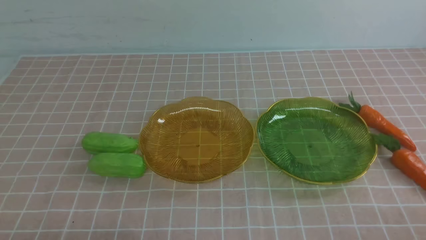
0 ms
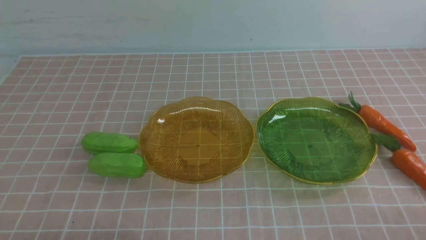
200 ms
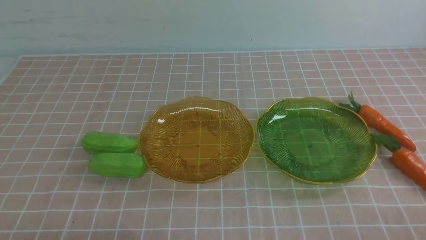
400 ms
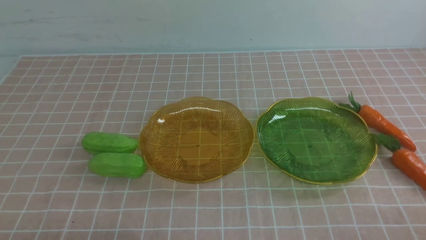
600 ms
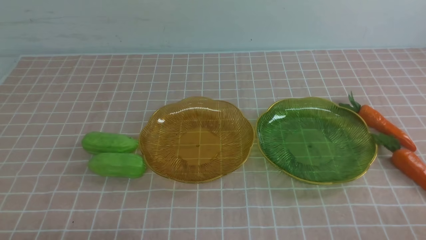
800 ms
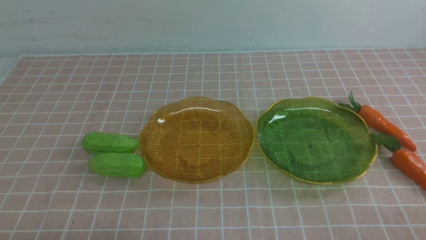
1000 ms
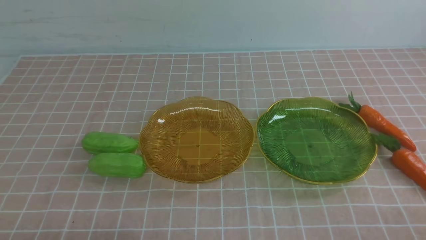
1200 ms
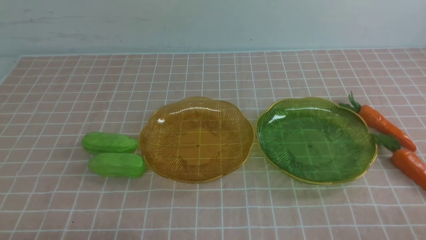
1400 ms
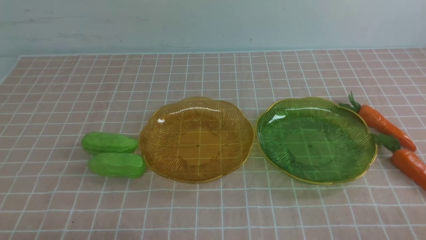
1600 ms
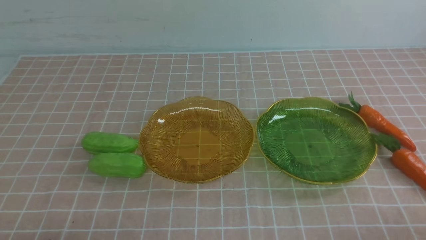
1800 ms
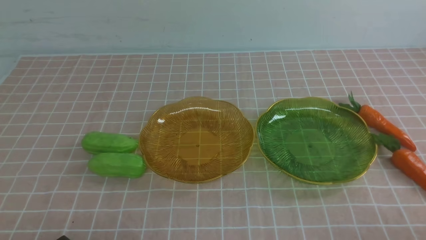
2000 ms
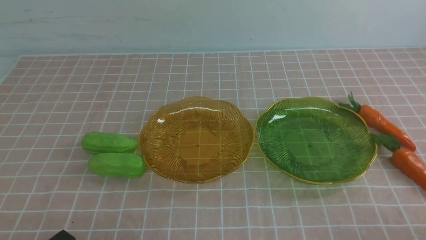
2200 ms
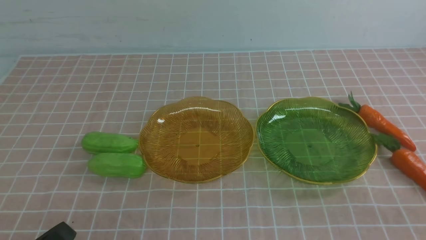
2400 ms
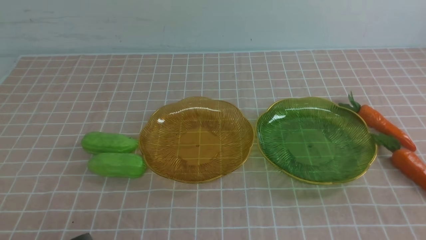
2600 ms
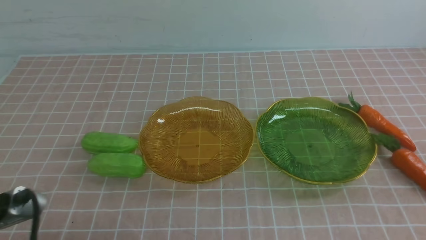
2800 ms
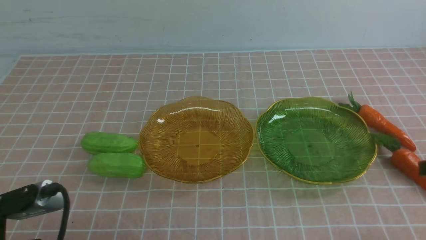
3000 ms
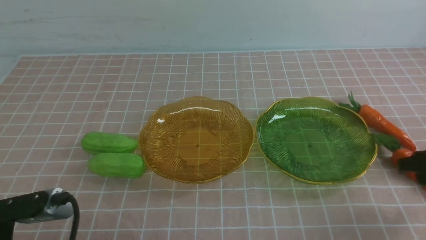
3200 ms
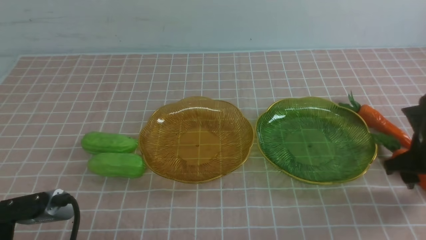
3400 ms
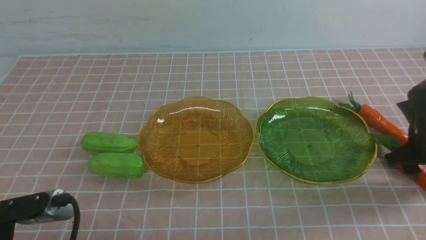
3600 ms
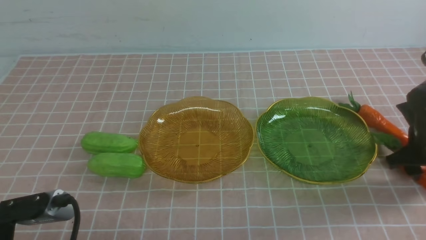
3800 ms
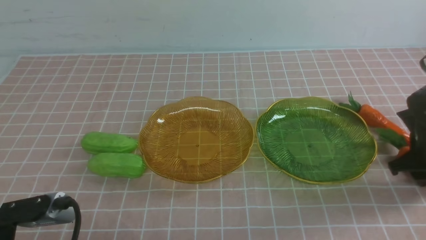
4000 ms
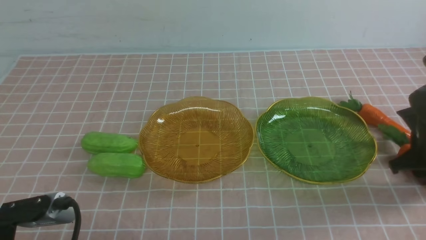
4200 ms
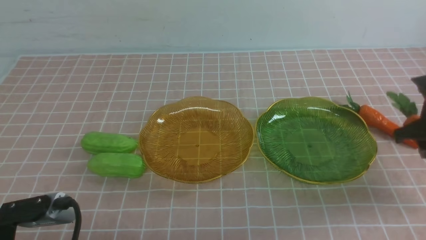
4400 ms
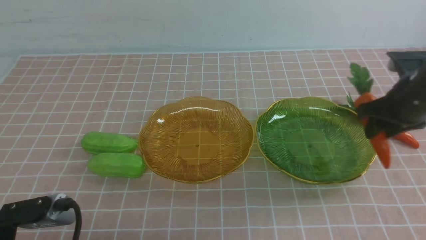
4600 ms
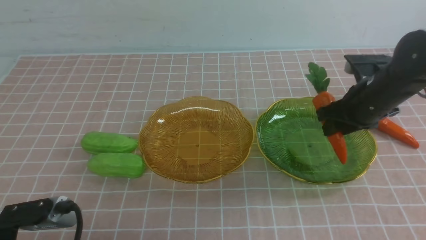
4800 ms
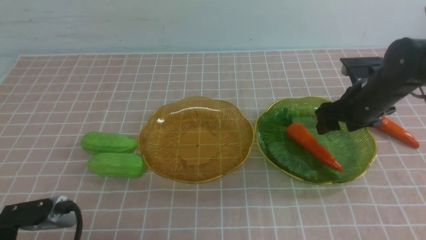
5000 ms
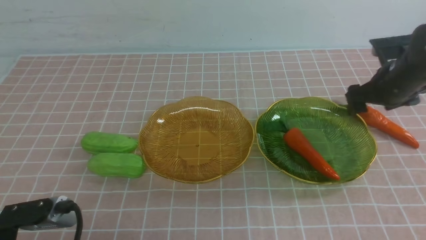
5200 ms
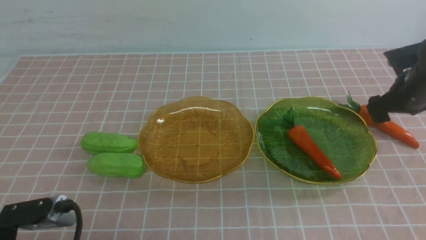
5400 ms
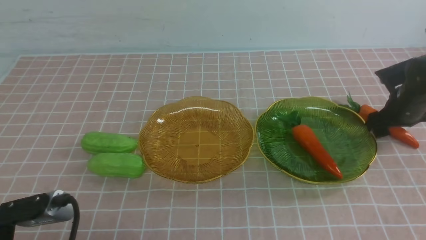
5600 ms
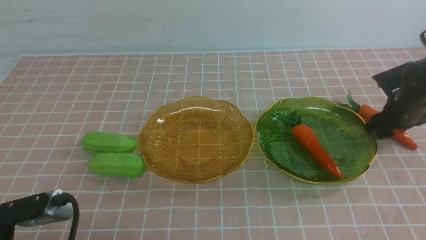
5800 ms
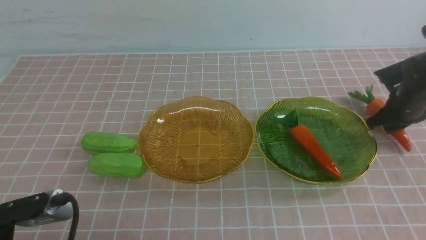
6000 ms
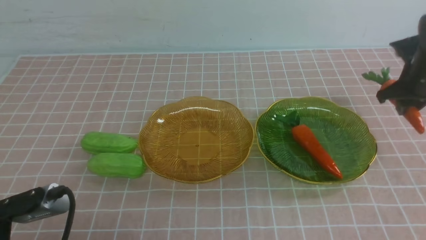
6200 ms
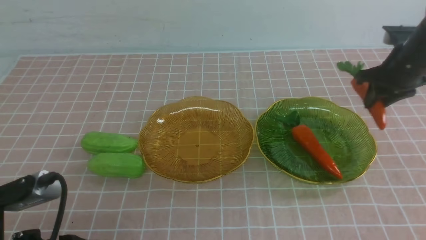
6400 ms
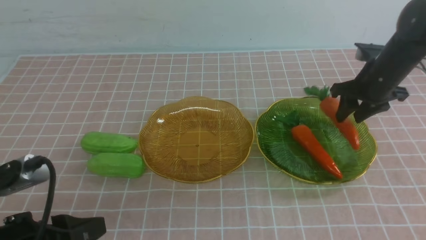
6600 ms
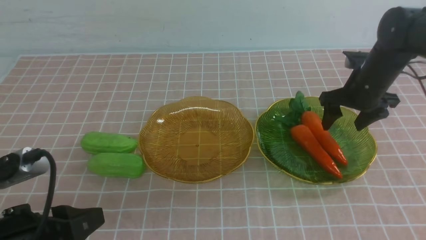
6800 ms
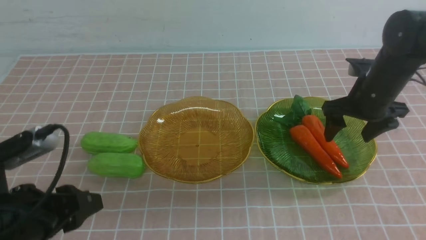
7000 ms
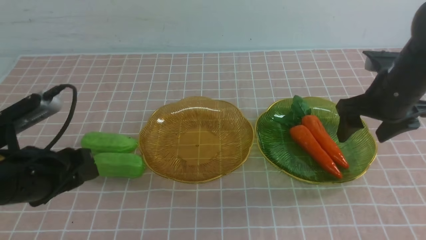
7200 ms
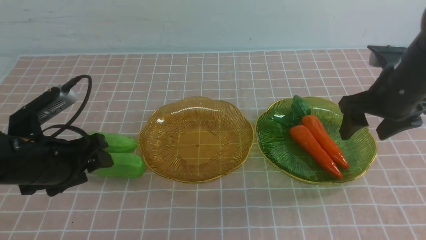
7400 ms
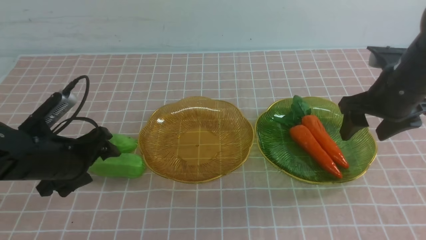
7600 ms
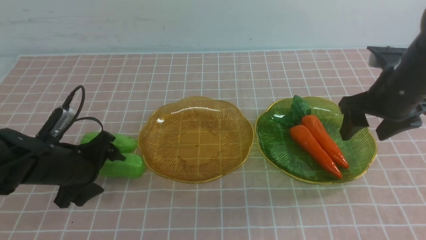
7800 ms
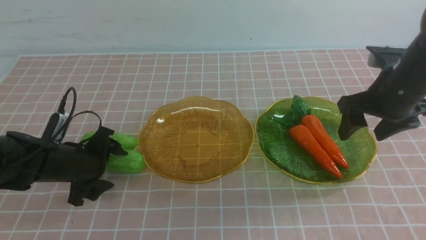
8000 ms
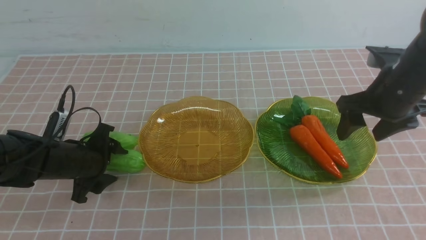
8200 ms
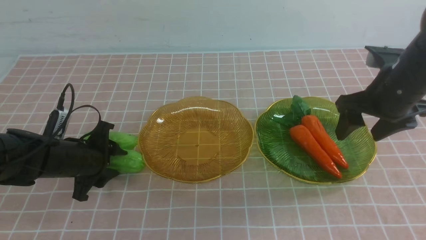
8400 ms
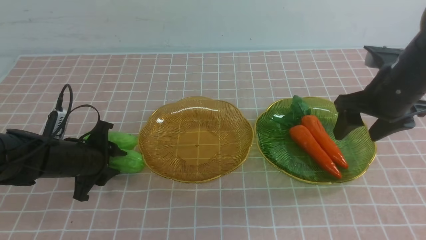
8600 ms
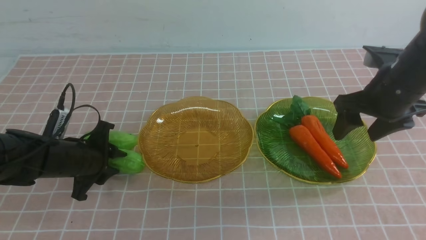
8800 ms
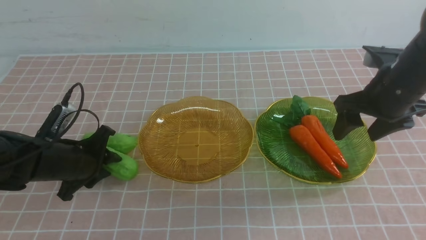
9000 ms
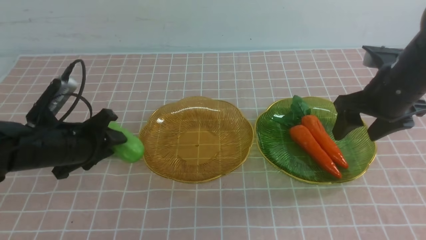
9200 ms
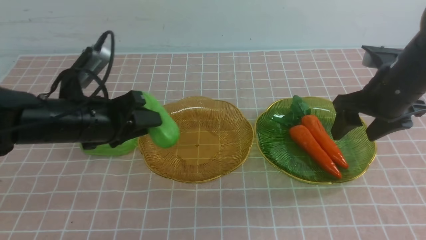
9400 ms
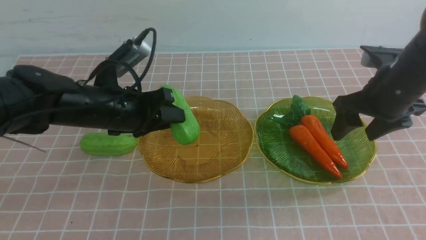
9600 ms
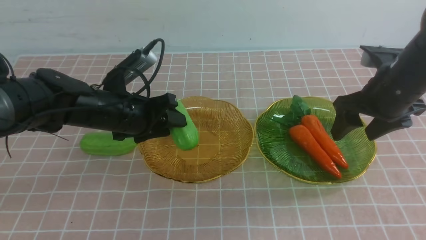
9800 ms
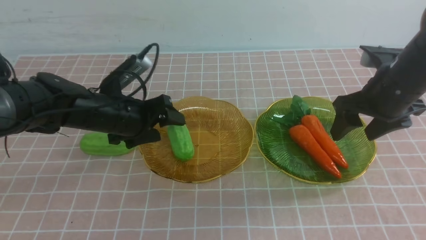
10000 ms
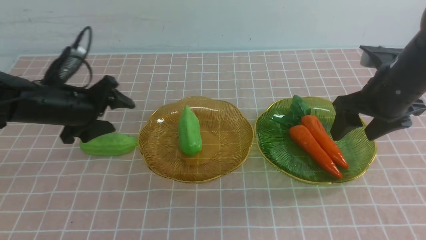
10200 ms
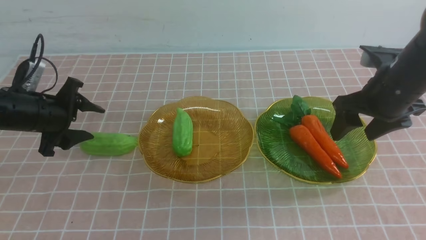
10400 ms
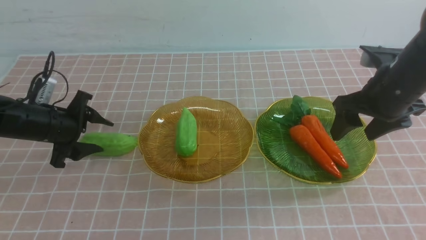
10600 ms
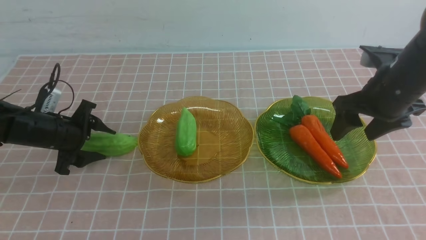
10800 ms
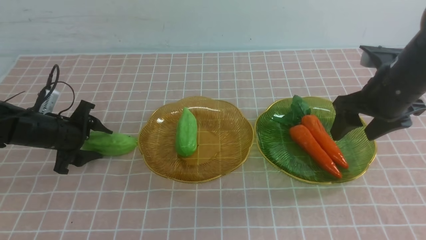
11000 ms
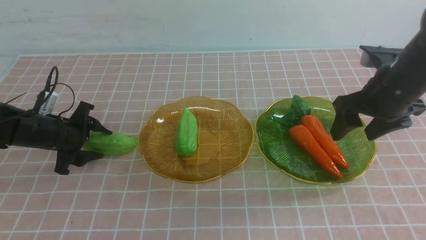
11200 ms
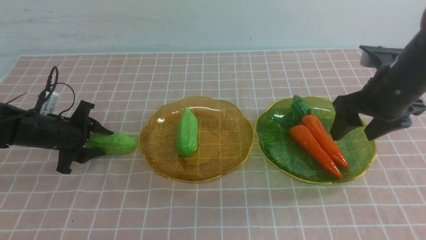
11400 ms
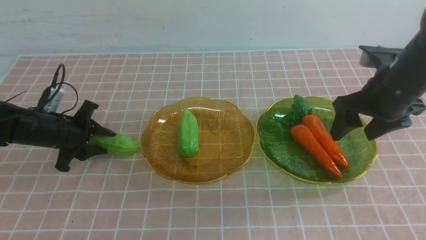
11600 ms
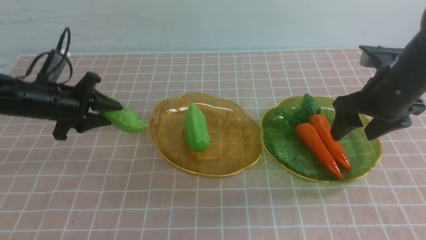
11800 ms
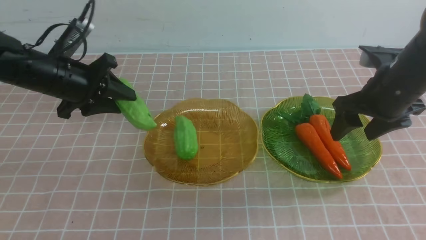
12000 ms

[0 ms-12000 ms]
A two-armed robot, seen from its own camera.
Step, 0 ms to 4800 ms: use the right arm to grab a carrot and put it into the right plate.
Step, 5200 ms to 6600 ms: use the right arm to grab a carrot and put it into the right plate.
Step, 6800 ms to 9800 ms: use the left arm to grab a chayote and put it into the left plate.
1600 ms to 3000 ms: The left gripper travels upward by approximately 5 cm.
3000 ms to 4400 ms: The right gripper goes about 15 cm forward.
4400 ms to 6000 ms: The right gripper travels forward by some 10 cm, travels to the left and back again, about 5 cm each way, and opens and closes again.
6000 ms to 7600 ms: The right gripper is displaced backward, to the left and upward by about 15 cm, and opens up, while the left gripper is displaced forward and downward by roughly 25 cm, and opens up.
7600 ms to 9000 ms: The left gripper goes some 10 cm upward and to the right, and closes.
9000 ms to 10400 ms: The left gripper travels to the left, downward and forward by approximately 15 cm, and opens.
10400 ms to 12000 ms: The left gripper is displaced upward and to the right by about 10 cm, and closes.

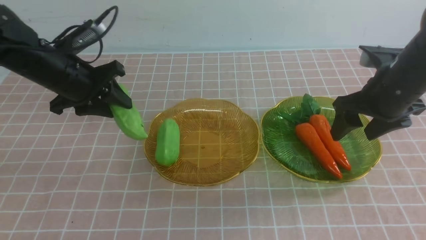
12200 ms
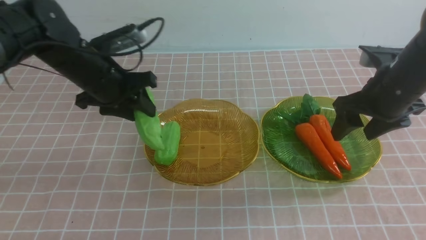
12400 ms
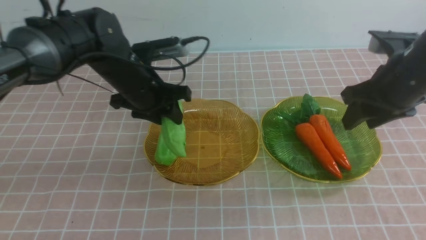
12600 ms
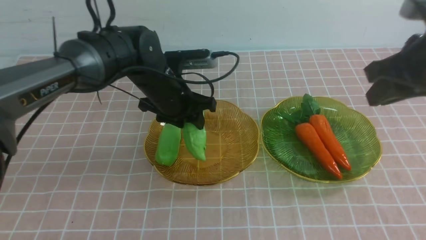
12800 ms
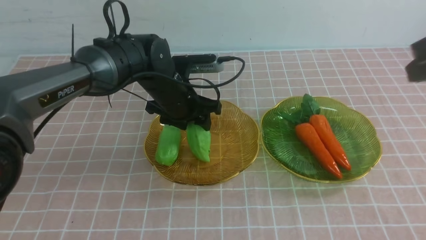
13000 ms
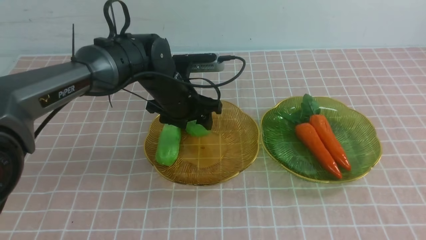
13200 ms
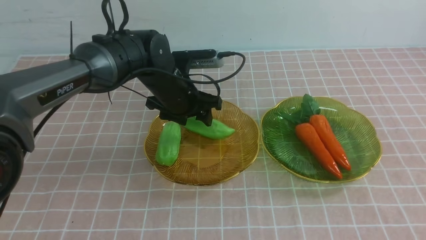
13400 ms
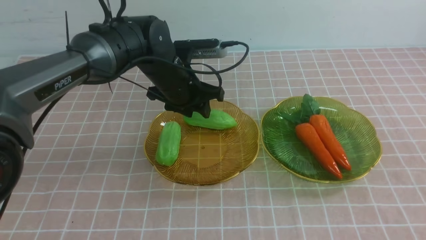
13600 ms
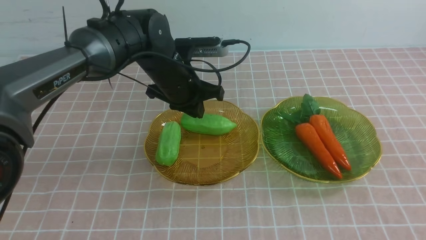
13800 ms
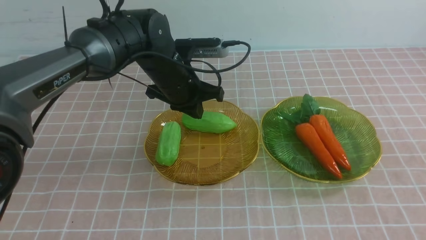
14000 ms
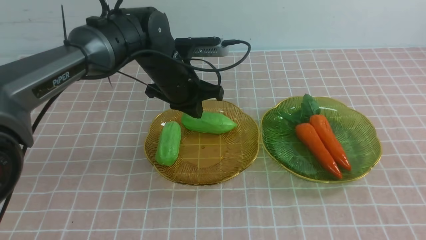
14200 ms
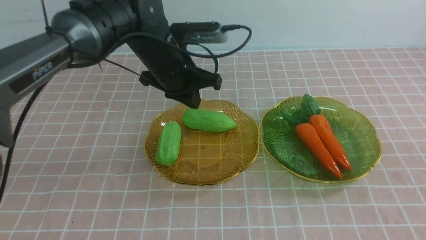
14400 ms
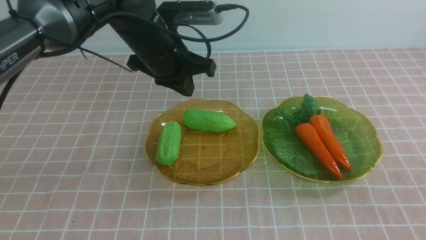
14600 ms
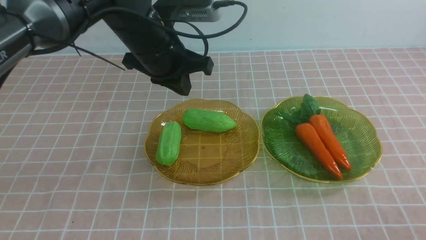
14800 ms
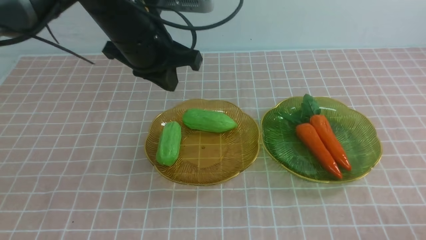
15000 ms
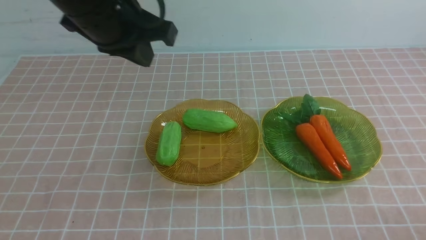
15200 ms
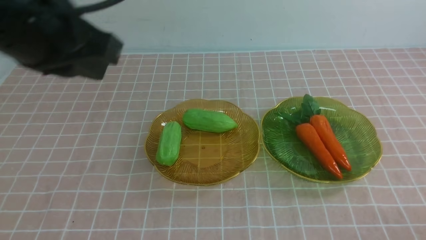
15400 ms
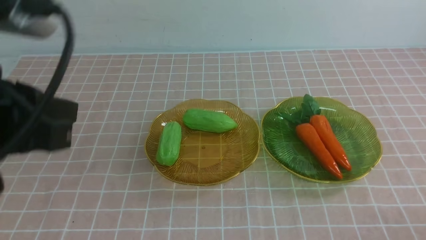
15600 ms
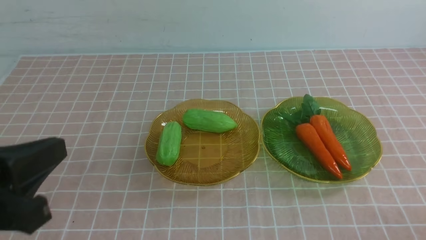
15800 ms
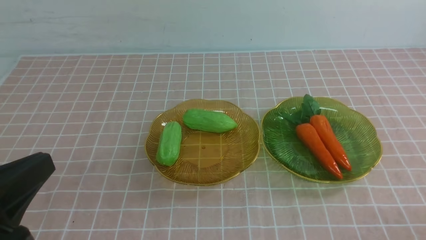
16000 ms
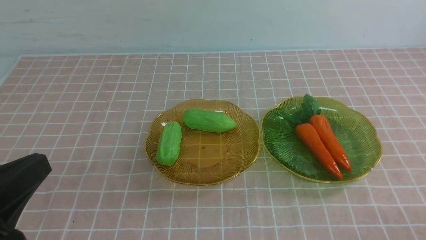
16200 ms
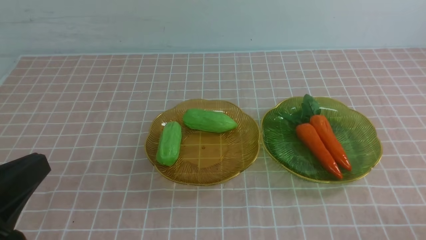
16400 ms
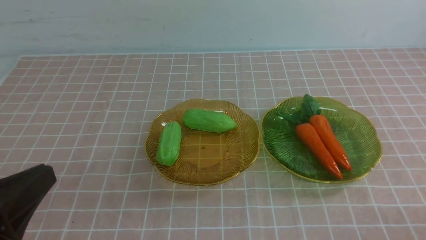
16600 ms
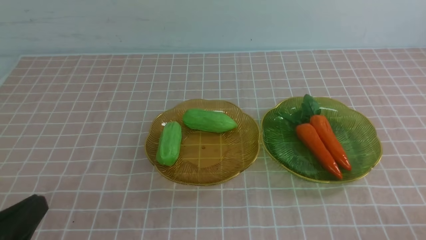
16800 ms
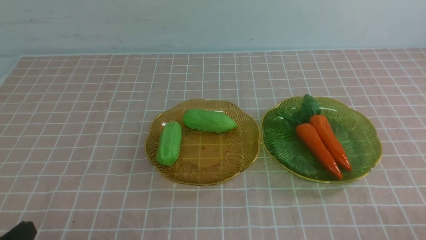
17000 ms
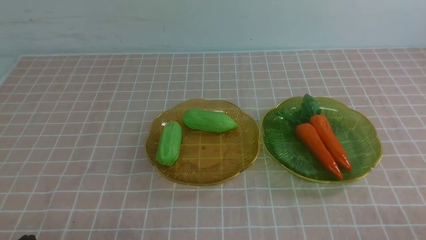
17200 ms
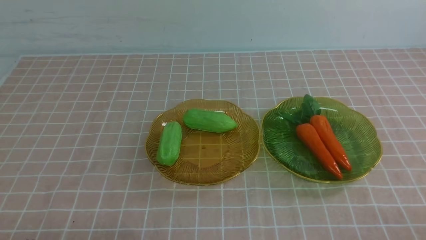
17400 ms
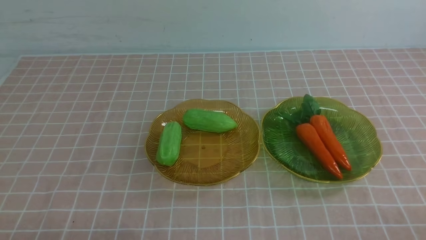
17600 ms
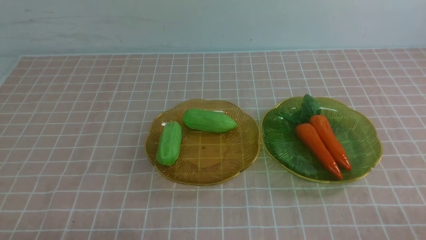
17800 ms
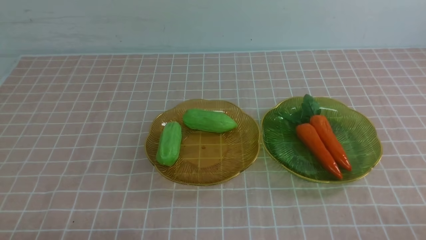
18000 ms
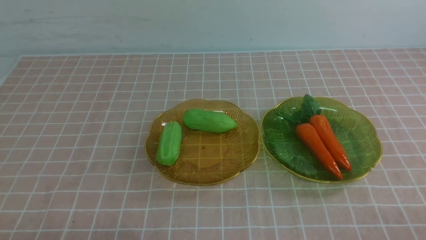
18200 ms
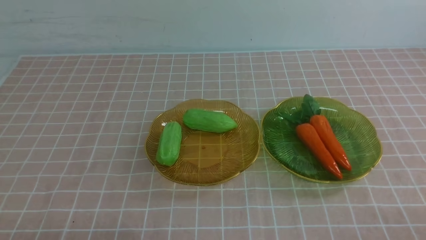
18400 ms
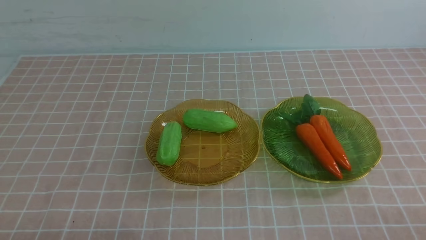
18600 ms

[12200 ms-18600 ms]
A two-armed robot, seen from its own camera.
12200 ms to 13800 ms: The right gripper travels backward by about 25 cm, and closes, while the left gripper shifts roughly 10 cm to the right.
13800 ms to 15400 ms: The left gripper is displaced backward, upward and to the left by roughly 30 cm. Meanwhile the right gripper is displaced downward by about 15 cm.
15400 ms to 17000 ms: The left gripper heads downward and backward, covering roughly 25 cm.
